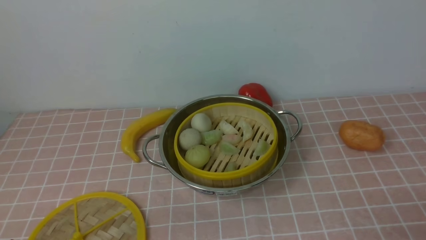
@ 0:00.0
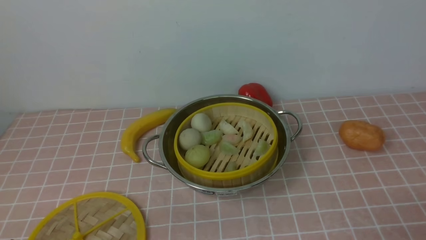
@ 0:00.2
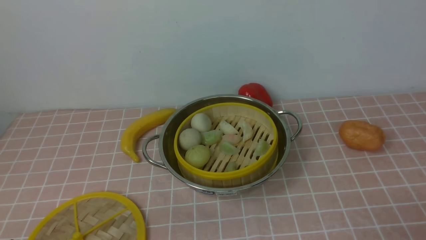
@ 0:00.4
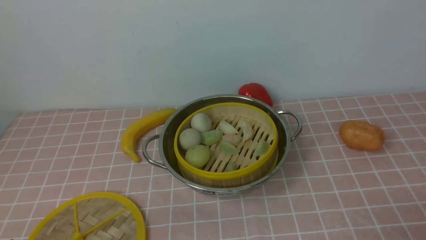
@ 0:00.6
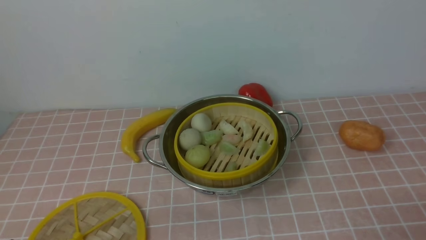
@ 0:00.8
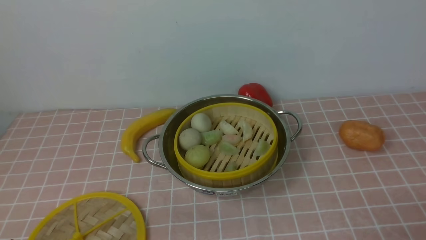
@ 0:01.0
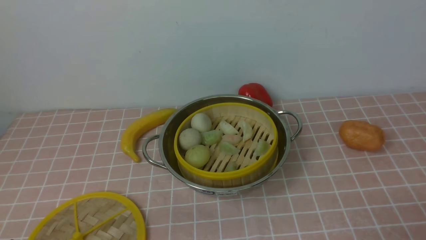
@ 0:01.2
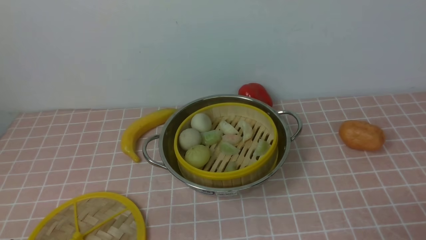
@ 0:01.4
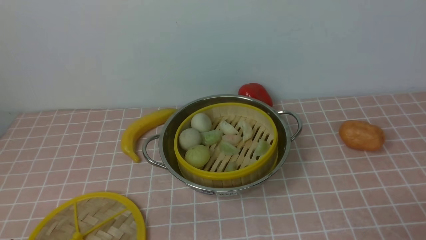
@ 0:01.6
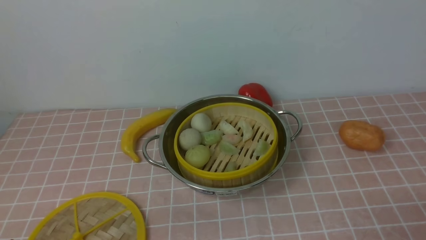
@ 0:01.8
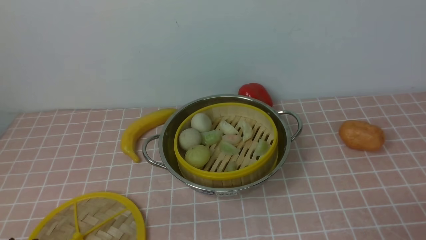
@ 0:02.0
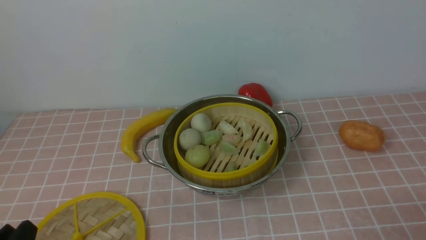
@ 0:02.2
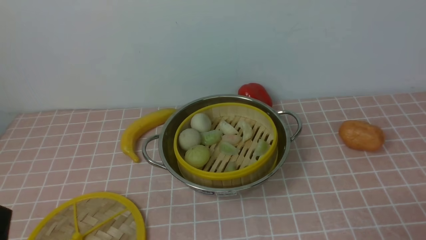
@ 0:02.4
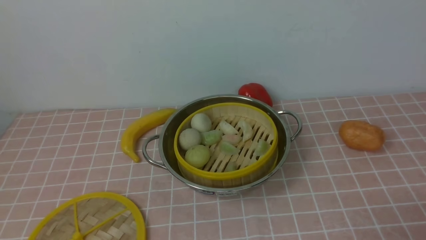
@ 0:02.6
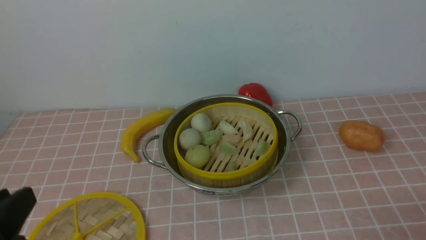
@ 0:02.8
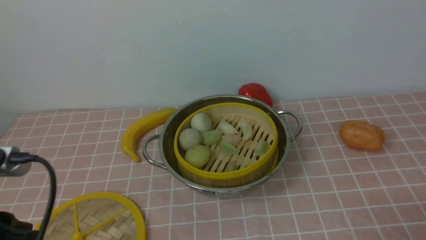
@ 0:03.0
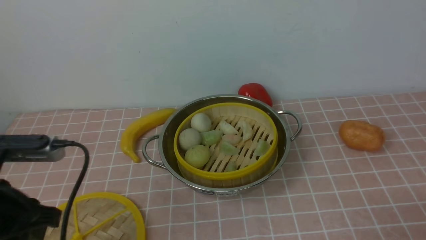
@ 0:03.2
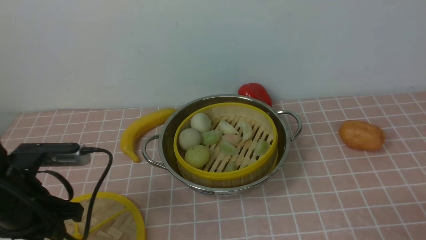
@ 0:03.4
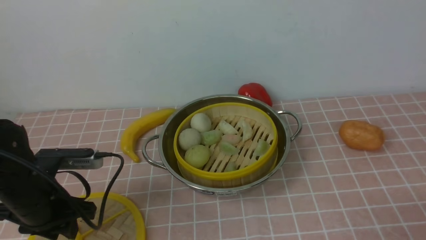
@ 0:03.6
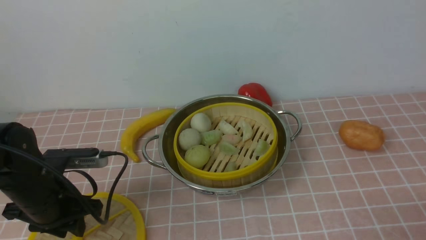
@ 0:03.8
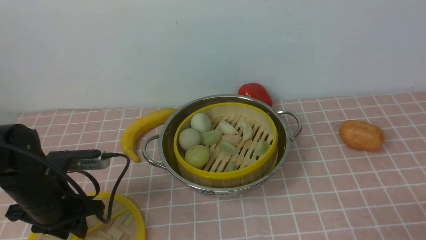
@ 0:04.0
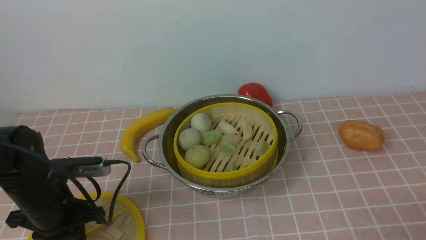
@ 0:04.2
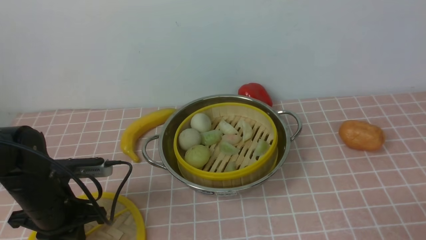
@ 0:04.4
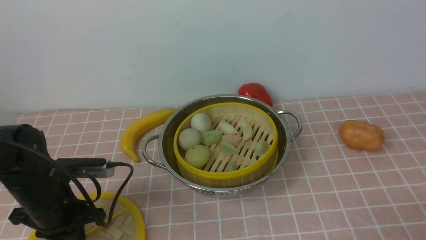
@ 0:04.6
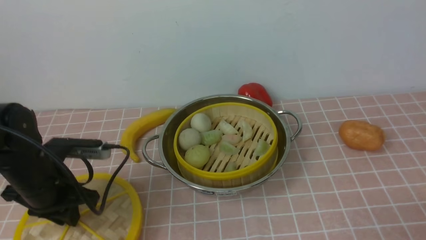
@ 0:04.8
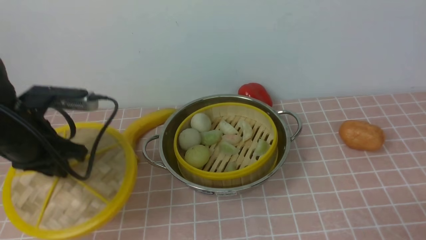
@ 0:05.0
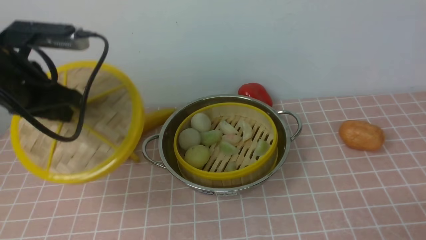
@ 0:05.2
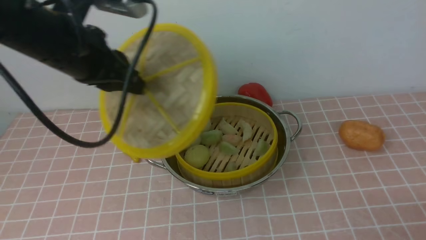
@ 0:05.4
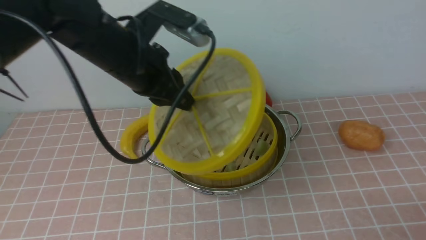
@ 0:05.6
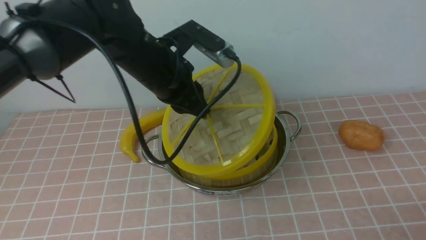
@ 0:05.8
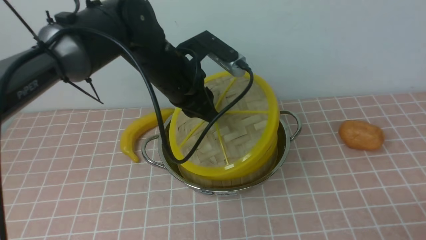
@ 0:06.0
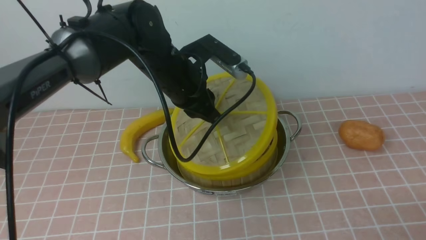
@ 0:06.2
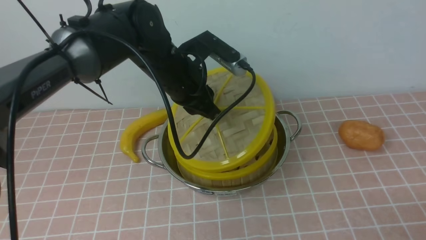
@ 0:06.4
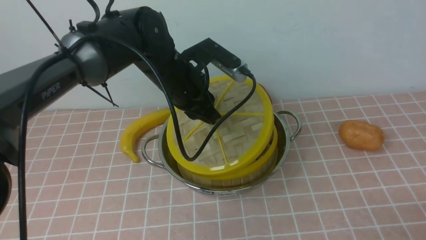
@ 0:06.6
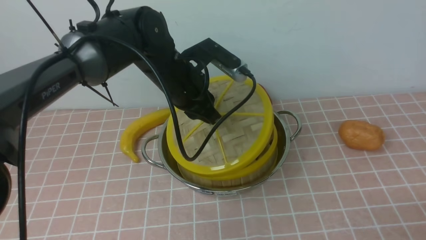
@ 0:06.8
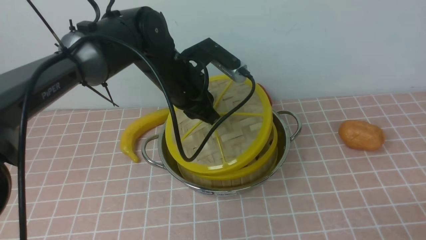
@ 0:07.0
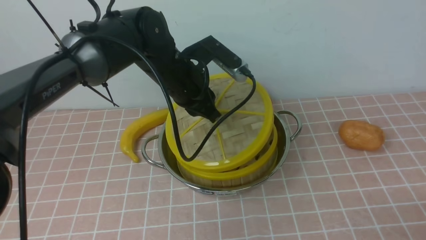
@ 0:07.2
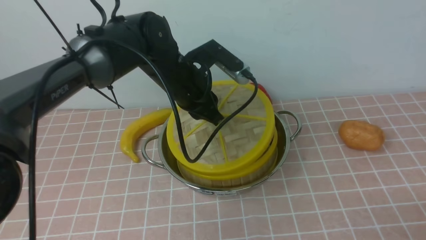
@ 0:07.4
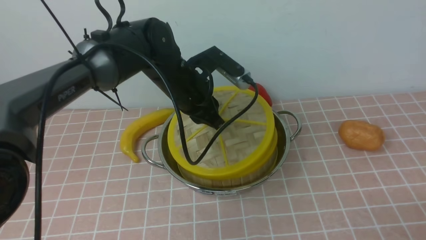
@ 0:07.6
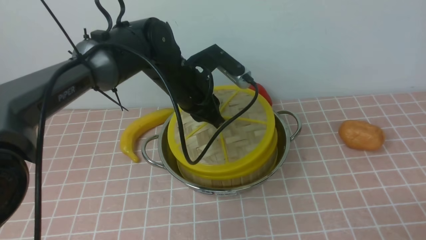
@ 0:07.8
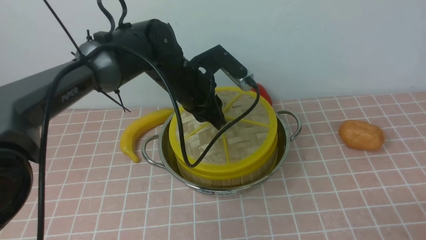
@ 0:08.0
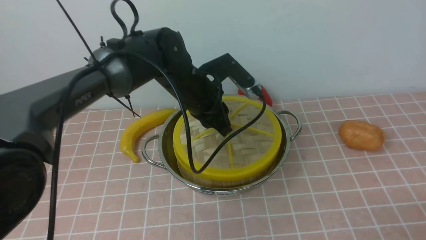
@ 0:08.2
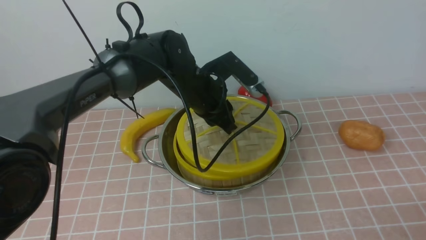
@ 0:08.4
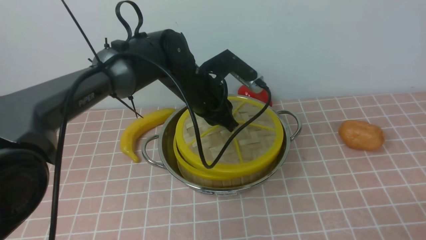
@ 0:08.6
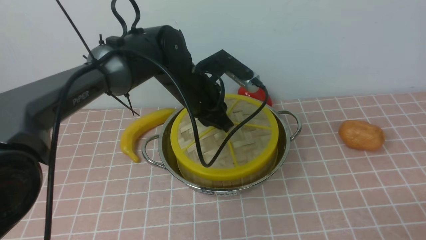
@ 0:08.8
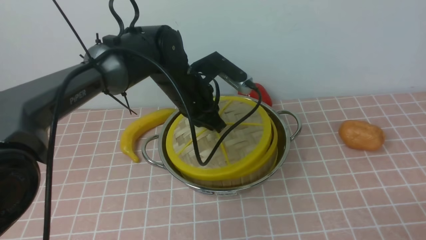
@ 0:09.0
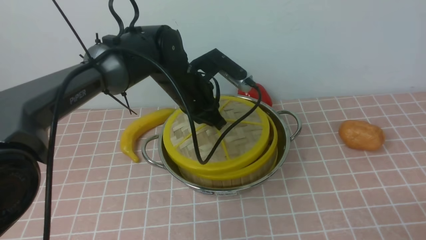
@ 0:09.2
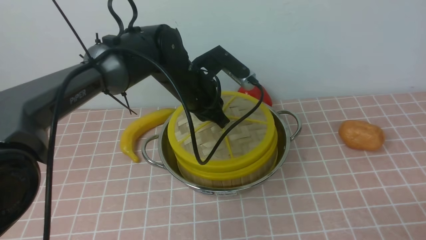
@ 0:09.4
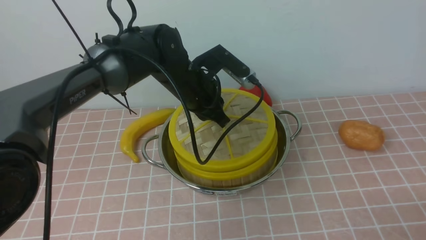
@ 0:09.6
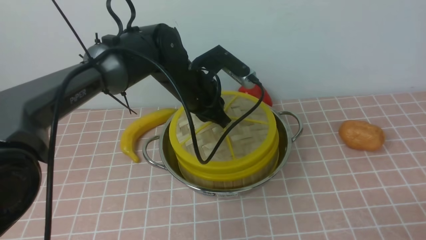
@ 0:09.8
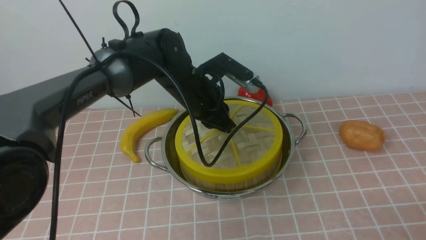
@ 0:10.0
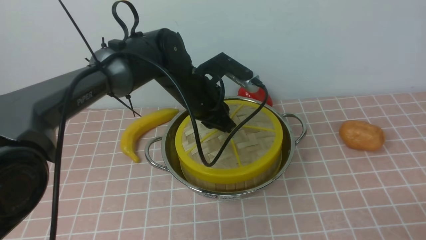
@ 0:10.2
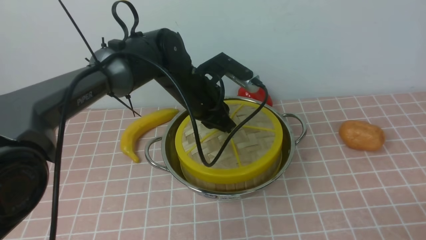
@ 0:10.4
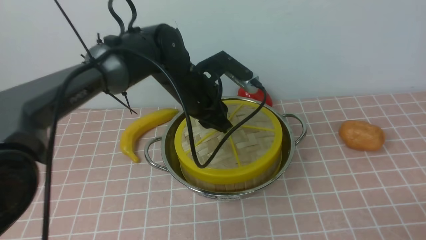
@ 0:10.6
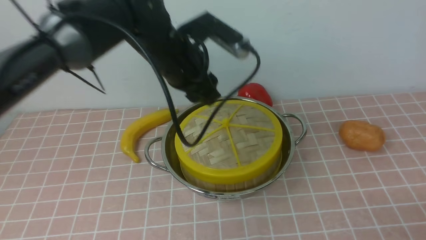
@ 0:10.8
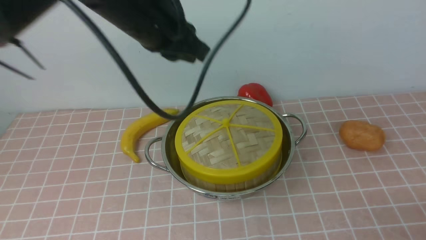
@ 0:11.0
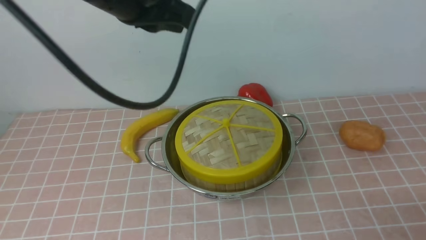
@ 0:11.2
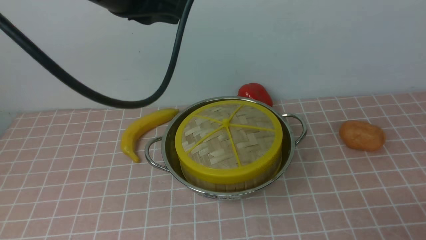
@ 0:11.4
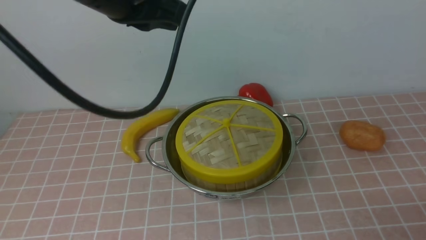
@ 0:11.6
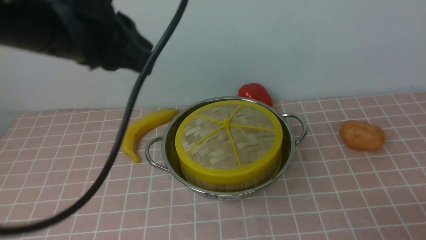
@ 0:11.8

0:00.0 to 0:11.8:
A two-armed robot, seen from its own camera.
Task of the whole recording: place the steamer in the pot on the pink tablecloth, and put the lid on the steamer.
Step, 0:00.0 to 0:04.8: use the left arm to lift the lid of the steamer.
Step, 0:05.0 to 0:10.6: use the left arm to place the steamer lid on the steamer.
0:01.4 to 0:03.0: The left gripper travels upward and forward by about 15 cm.
0:03.0 to 0:04.4: The left gripper goes roughly 20 cm forward and downward, and closes its fingers.
0:04.4 to 0:06.0: The left gripper shifts approximately 25 cm to the right, forward and upward.
0:06.0 to 0:07.4: The grippers stay close to where they were, moving slightly.
0:07.4 to 0:08.8: There are only small adjustments of the grippers.
0:08.8 to 0:10.4: Both grippers stay put.
0:10.4 to 0:11.8: The left gripper travels upward, backward and to the left by approximately 30 cm, and closes its fingers.

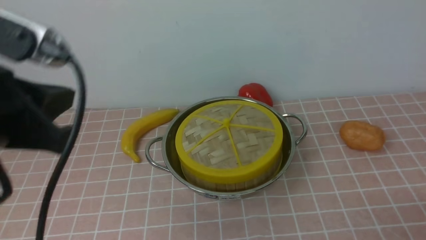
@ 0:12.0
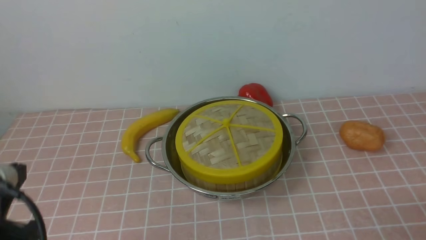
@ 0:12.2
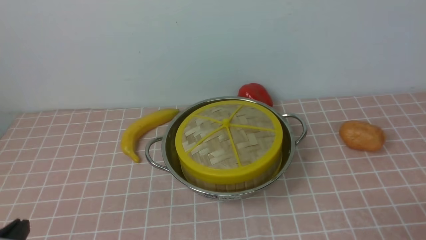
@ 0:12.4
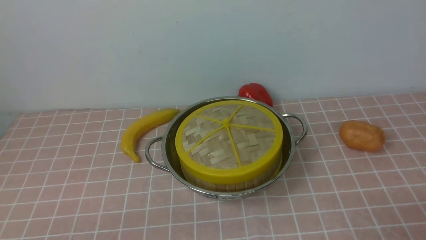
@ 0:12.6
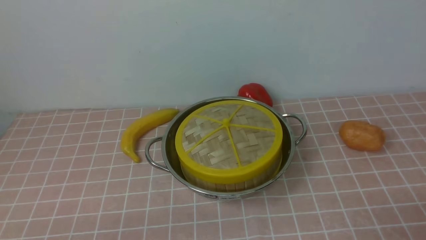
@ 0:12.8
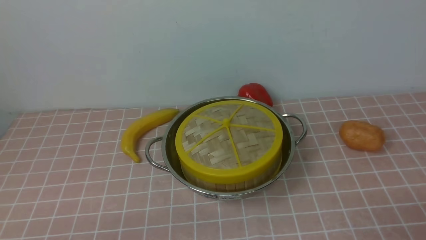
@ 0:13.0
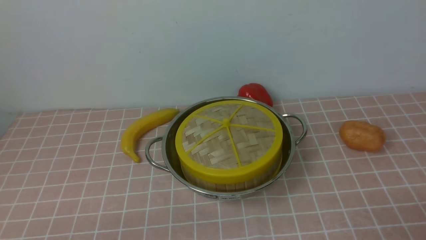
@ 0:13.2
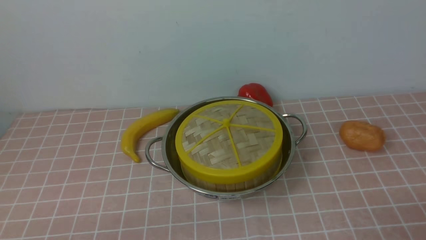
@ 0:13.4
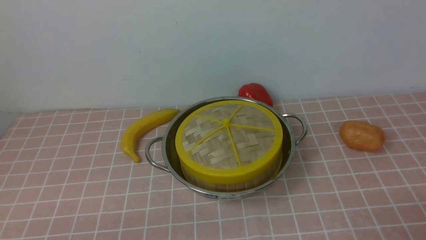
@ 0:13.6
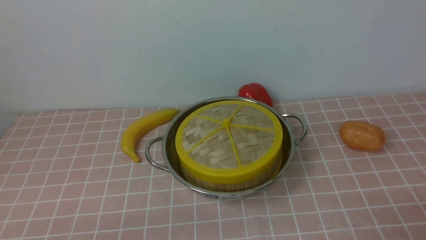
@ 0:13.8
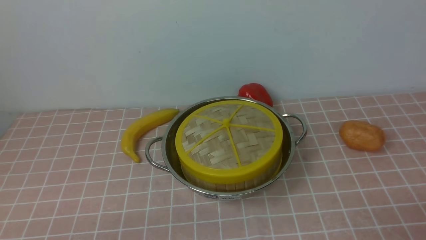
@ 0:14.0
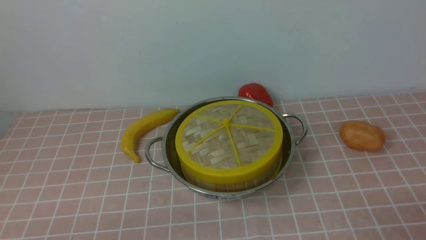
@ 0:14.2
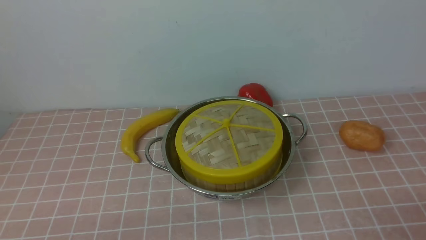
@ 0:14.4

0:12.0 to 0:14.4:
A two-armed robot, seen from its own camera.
Task of the whole recording: place the steamer in the pot on the pink tablecloth, and put the lid on the steamer.
0:12.0 to 0:13.2: The left gripper goes about 20 cm downward and backward.
0:13.2 to 0:14.4: Both grippers stay about where they are.

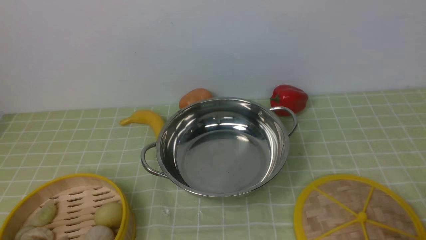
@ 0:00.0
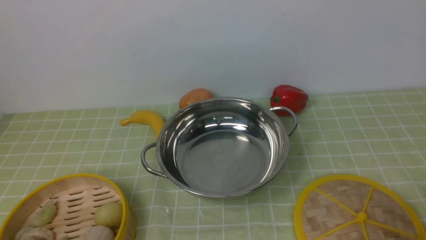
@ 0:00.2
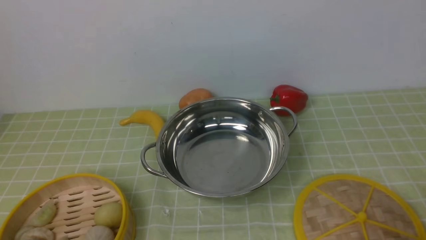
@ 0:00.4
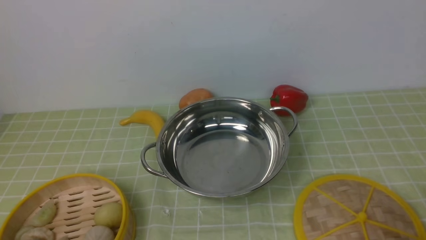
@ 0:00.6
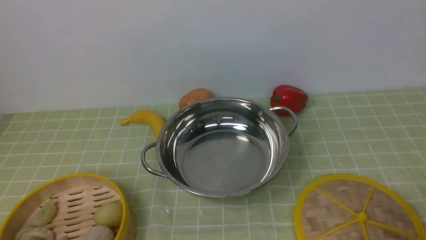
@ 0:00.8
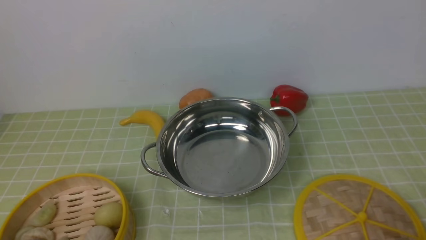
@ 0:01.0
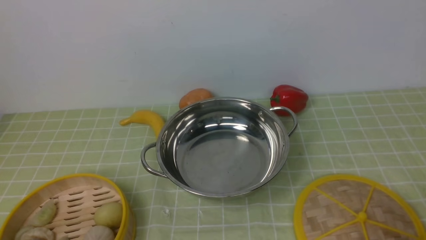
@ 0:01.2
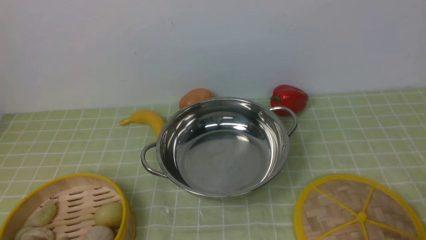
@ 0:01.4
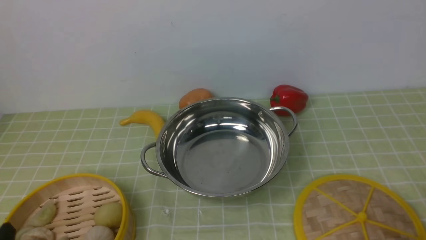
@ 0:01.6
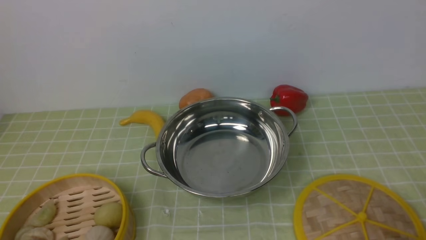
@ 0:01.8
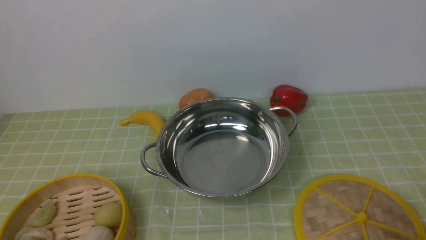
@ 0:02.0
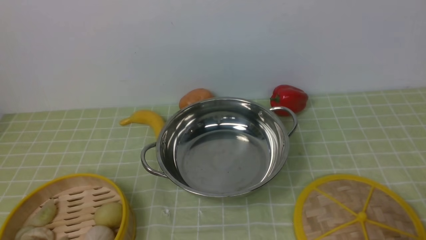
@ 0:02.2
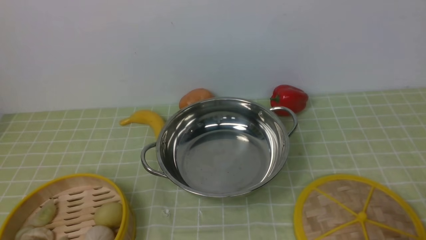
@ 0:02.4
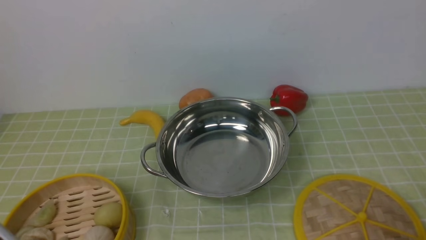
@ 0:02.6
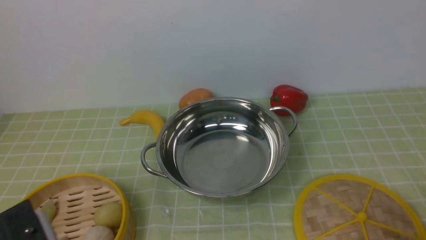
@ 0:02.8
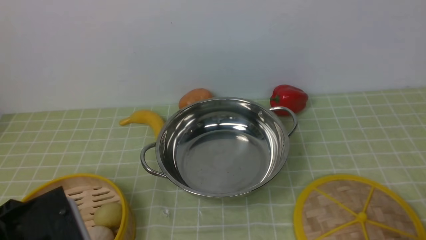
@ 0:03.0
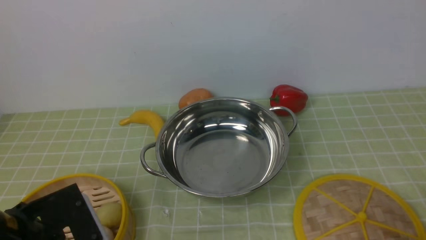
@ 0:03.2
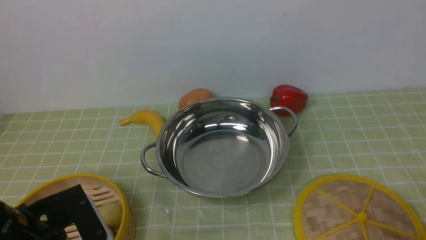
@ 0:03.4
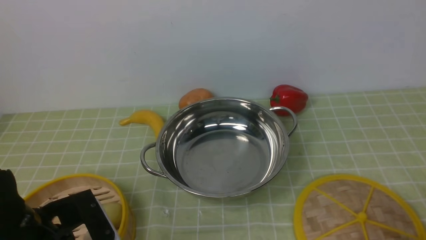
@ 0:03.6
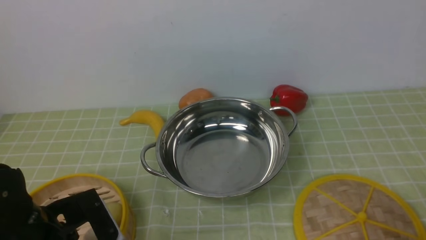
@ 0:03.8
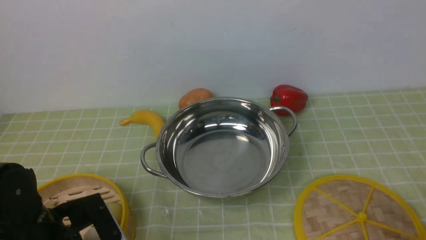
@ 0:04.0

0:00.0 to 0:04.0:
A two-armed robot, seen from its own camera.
Task of the whole recording: place the steamer in the pot on the green tablecloth, and put the lid on the steamer.
0:02.6 to 0:04.0: The left gripper moves forward and downward, roughly 15 cm, and opens up.
